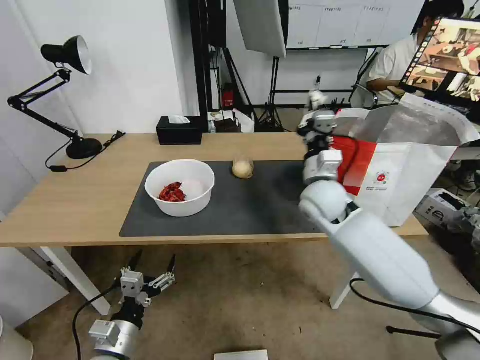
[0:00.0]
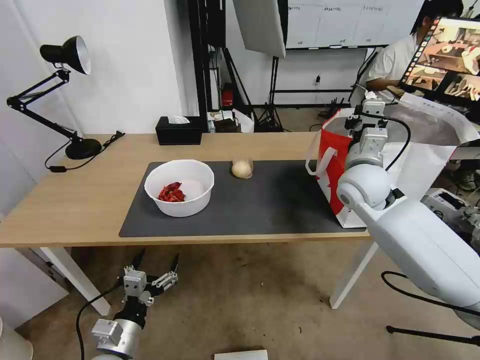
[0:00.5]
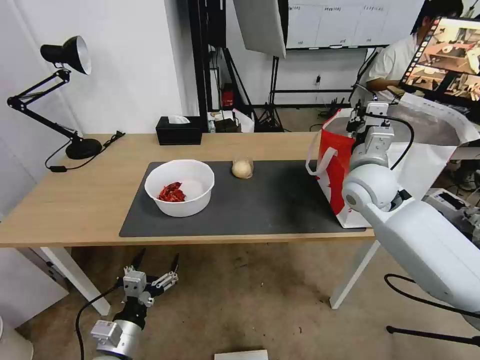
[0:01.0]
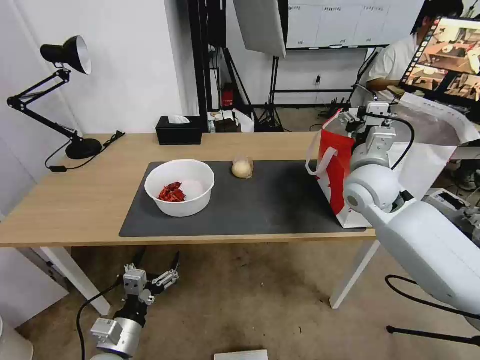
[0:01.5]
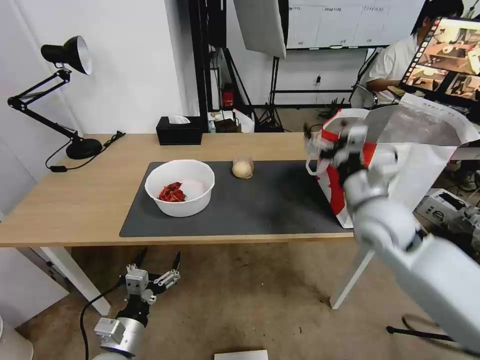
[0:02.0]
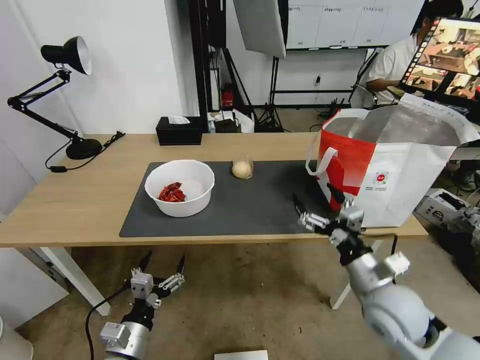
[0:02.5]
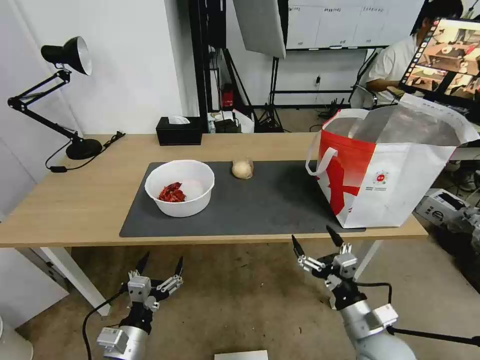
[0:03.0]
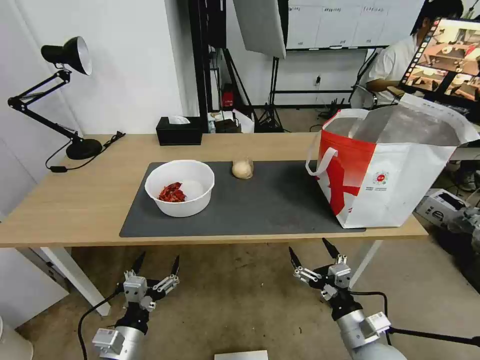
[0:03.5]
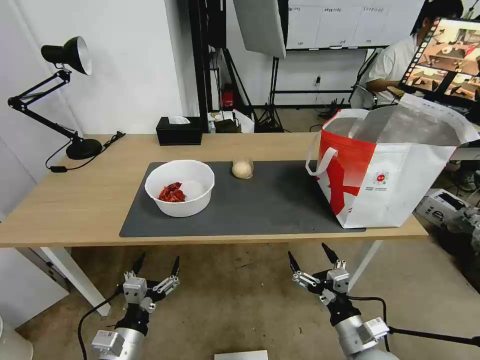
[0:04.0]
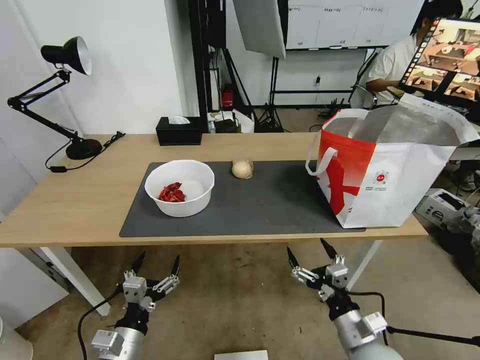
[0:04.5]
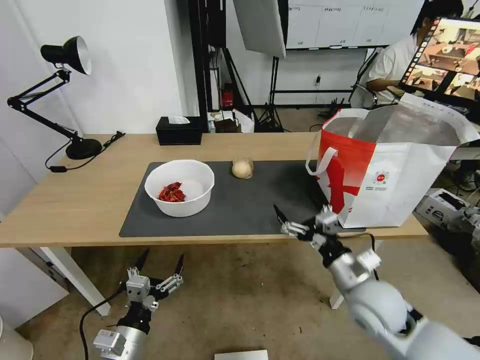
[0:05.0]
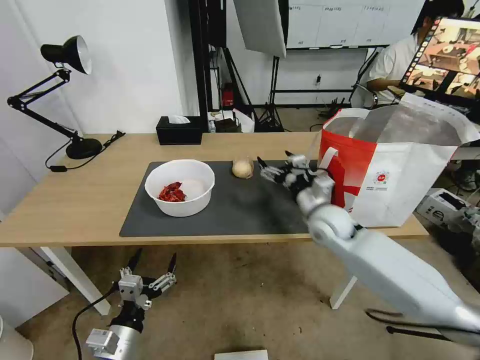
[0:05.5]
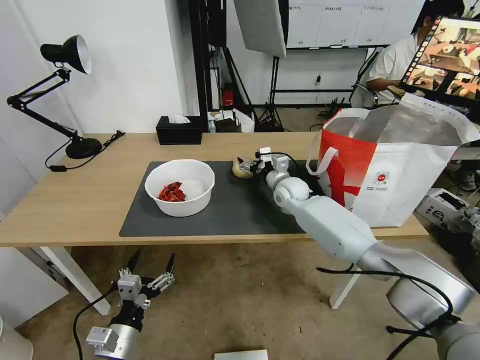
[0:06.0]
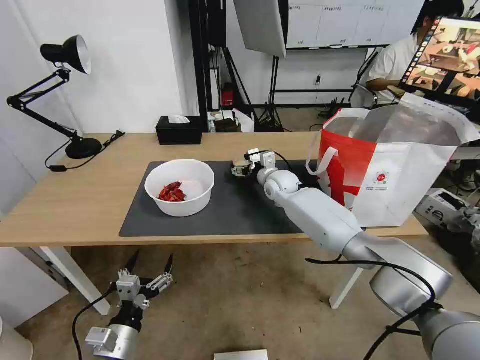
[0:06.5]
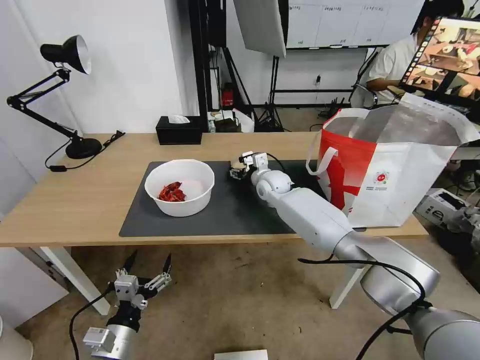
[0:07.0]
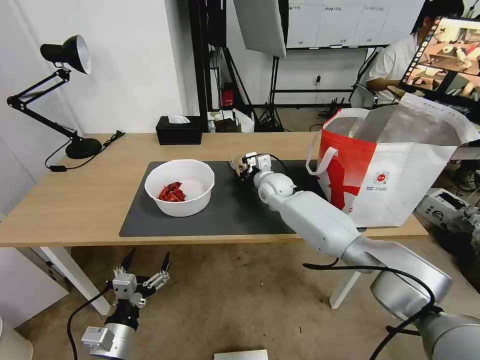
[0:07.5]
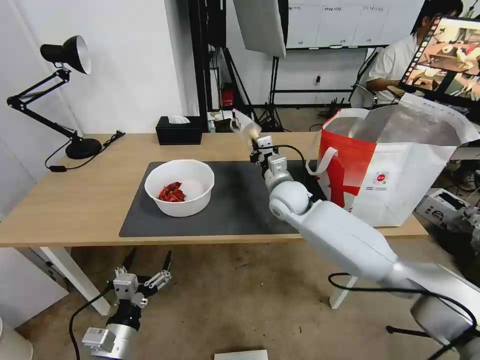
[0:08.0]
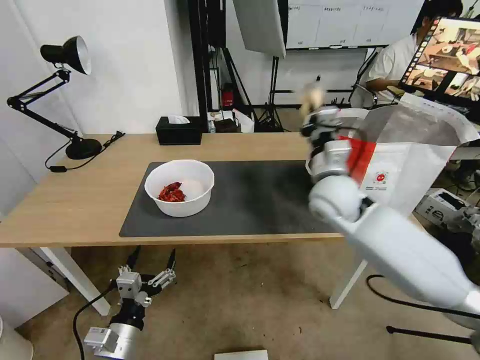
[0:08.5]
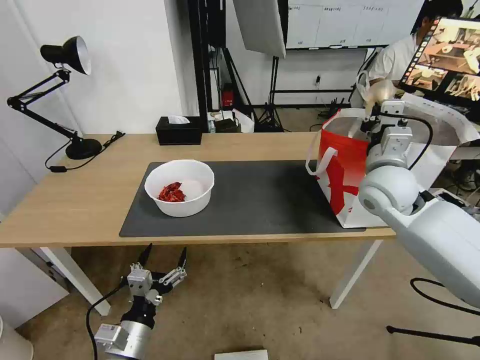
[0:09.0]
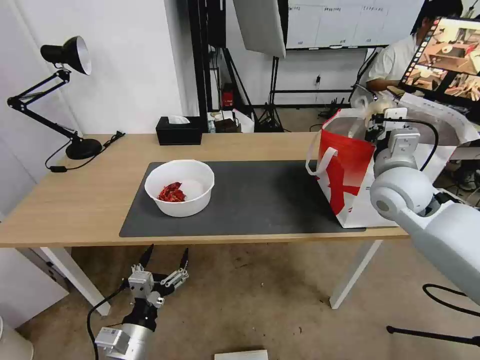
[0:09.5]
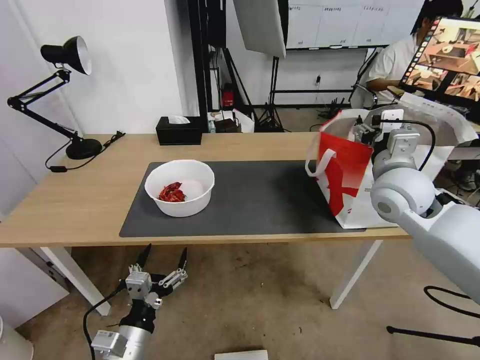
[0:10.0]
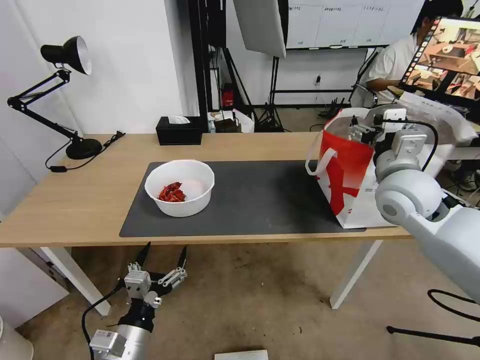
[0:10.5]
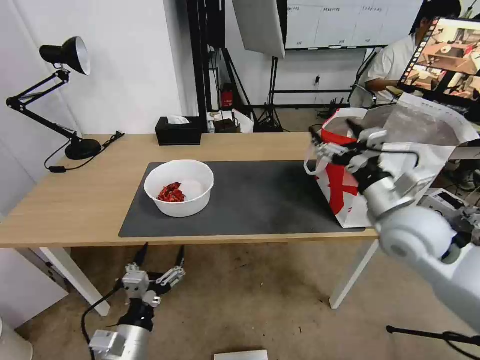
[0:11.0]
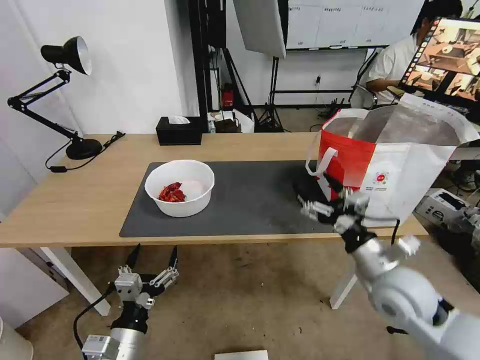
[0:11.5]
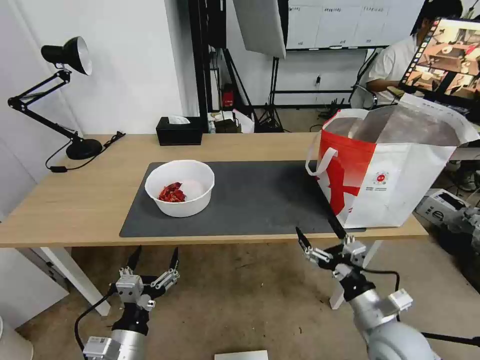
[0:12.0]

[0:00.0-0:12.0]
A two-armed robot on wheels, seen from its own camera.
Task of the whole recording: Pick up the trash from the table and place it into the takeout bag.
0:00.0 to 0:02.0: The right gripper heads backward and to the right, covering roughly 15 cm, and opens up.
0:02.0 to 0:04.0: The right gripper goes about 30 cm downward and backward.
0:04.0 to 0:06.0: The right gripper is displaced forward by approximately 40 cm.
0:06.0 to 0:08.0: The right gripper goes about 5 cm backward, and closes its fingers.
0:08.0 to 0:10.0: The left gripper changes place by roughly 5 cm; the right gripper shifts roughly 25 cm to the right, upward and backward, and opens its fingers.
0:10.0 to 0:12.0: The right gripper shifts about 30 cm backward and downward.

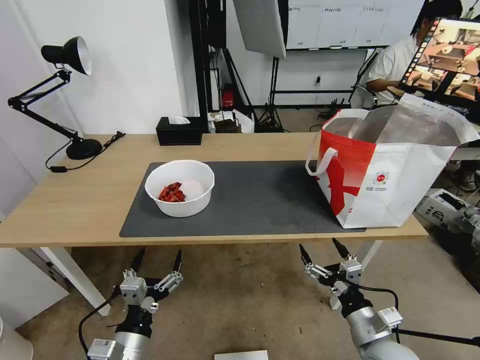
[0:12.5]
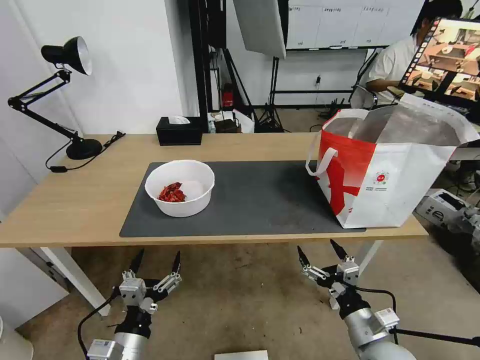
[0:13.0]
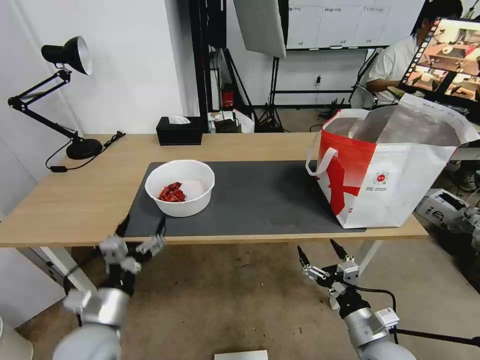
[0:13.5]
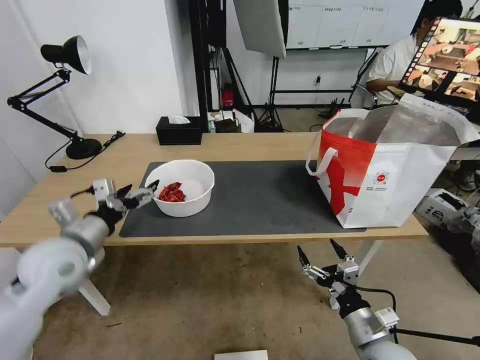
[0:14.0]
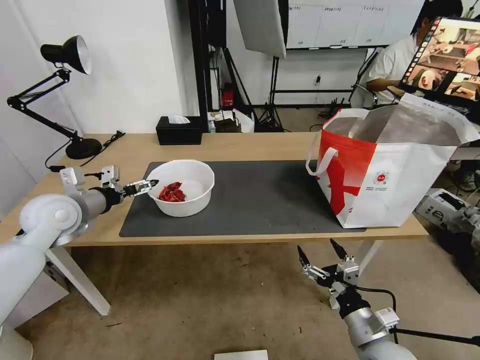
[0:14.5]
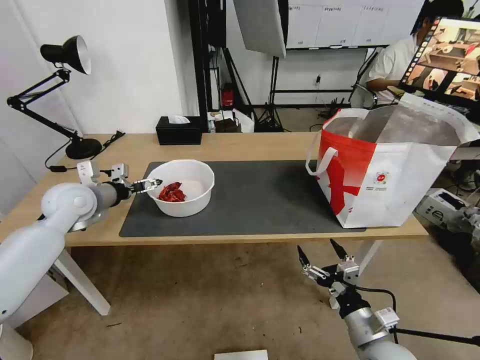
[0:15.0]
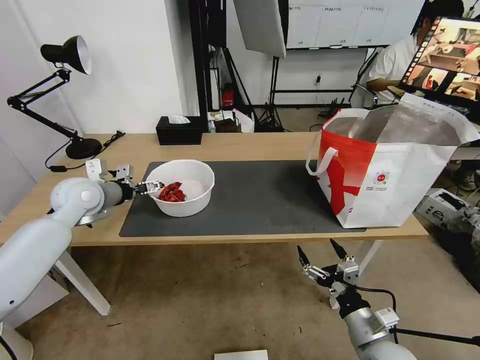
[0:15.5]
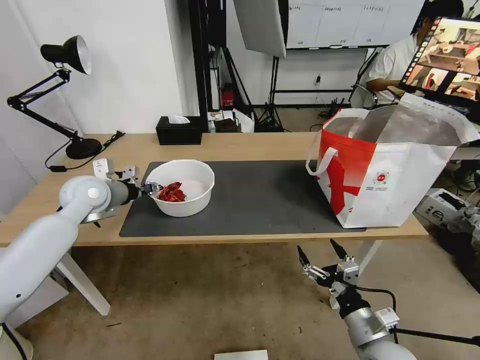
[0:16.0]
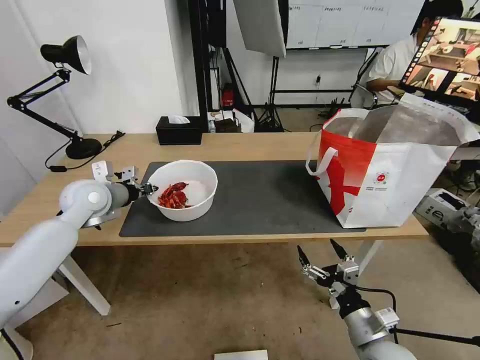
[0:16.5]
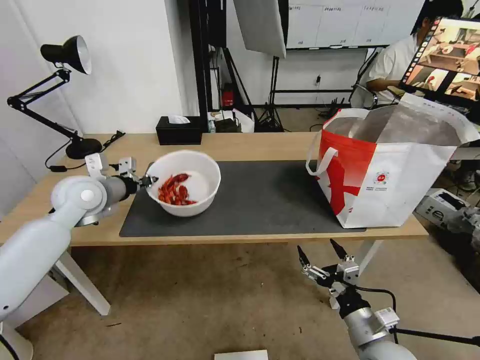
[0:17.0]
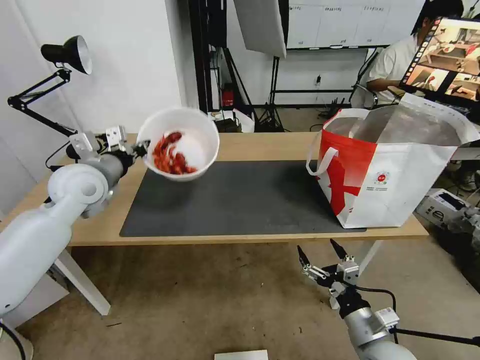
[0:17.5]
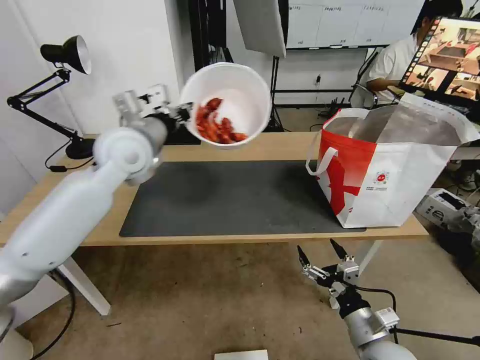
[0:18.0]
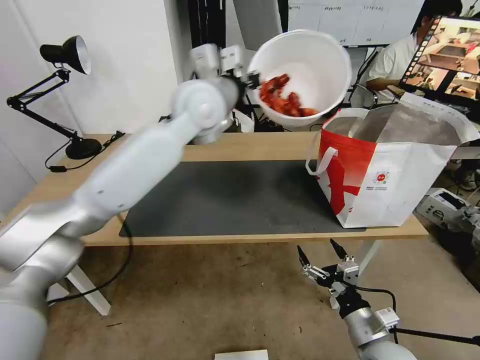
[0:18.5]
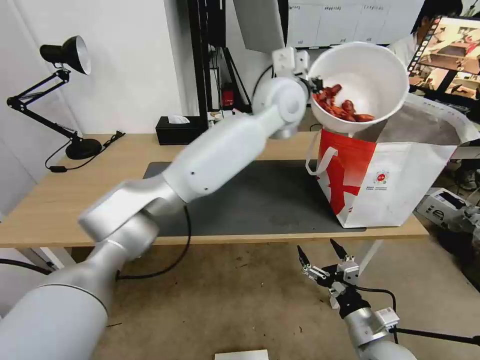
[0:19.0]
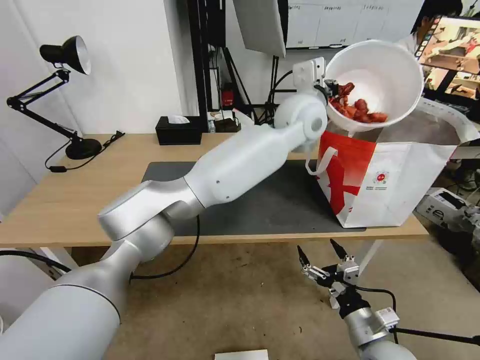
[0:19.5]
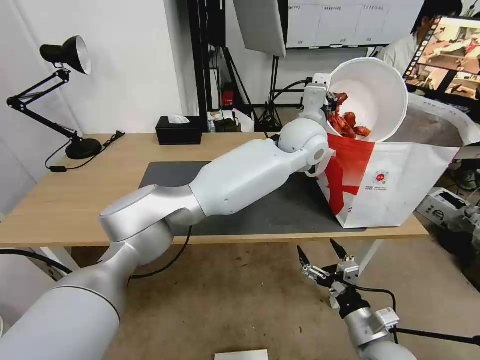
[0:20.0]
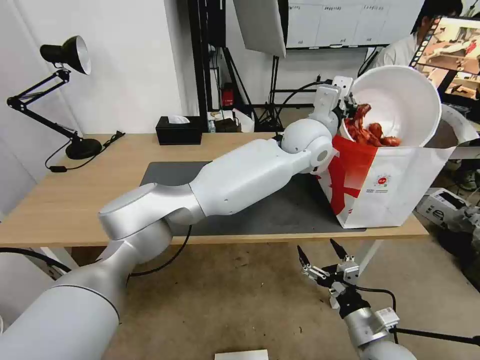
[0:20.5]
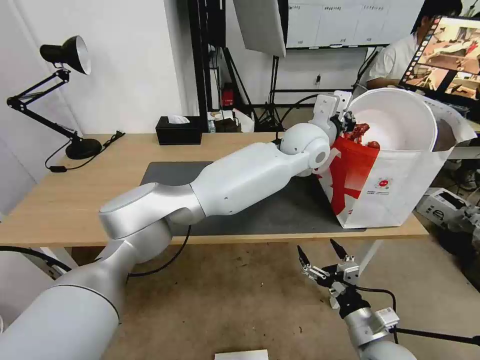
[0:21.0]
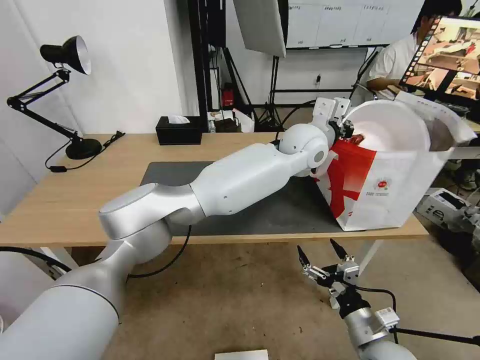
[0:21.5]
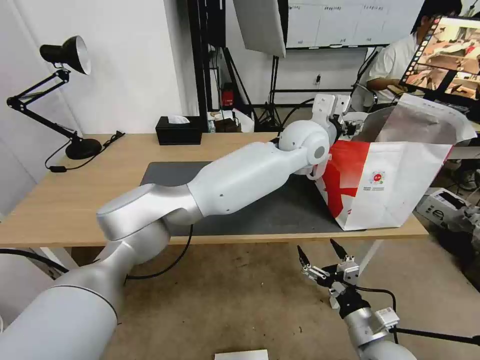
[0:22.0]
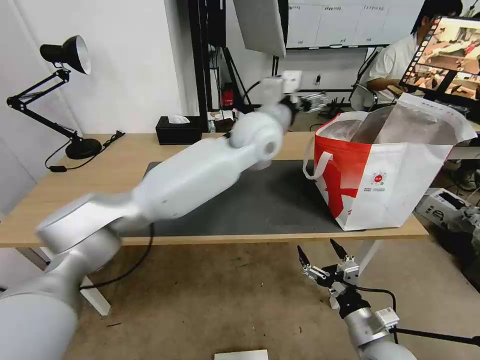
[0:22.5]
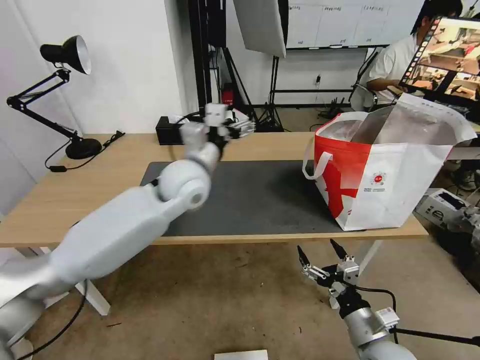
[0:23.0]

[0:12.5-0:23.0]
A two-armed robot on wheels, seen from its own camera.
Task of the whole recording: Pick up the trash from the table and place it into the takeout bag.
0:12.5 to 0:14.5: The left gripper heads forward, upward and to the left, covering about 35 cm.
0:14.5 to 0:16.5: The left gripper moves forward, roughly 5 cm, and closes its fingers.
0:16.5 to 0:19.0: The left gripper heads to the right and upward, covering some 40 cm.
0:19.0 to 0:21.0: The left gripper goes about 10 cm downward and to the right.
0:21.0 to 0:23.0: The left gripper shifts approximately 25 cm to the left, and opens.

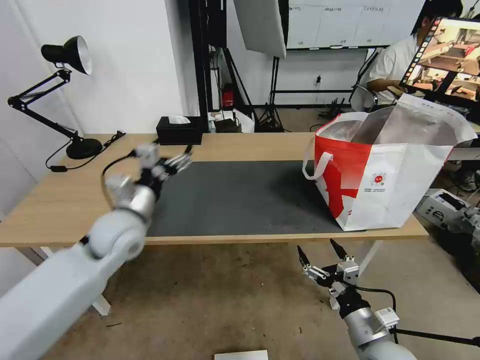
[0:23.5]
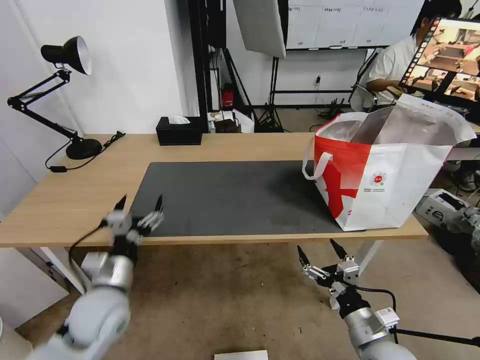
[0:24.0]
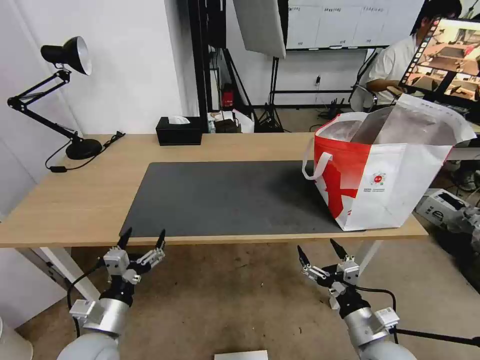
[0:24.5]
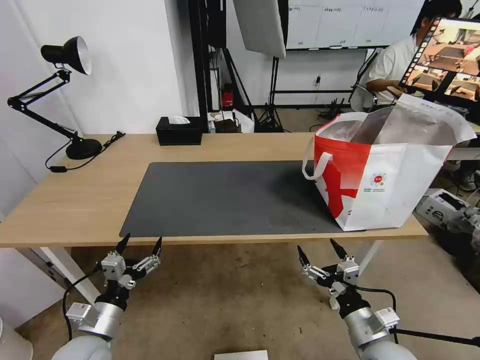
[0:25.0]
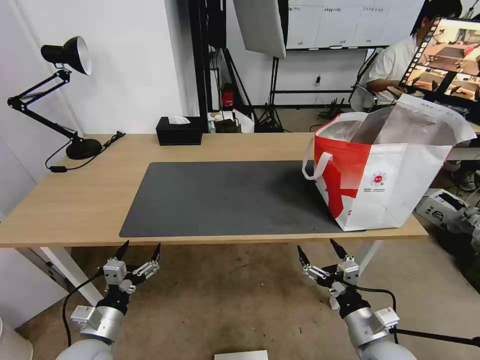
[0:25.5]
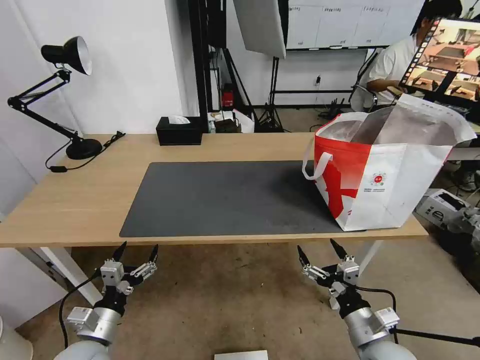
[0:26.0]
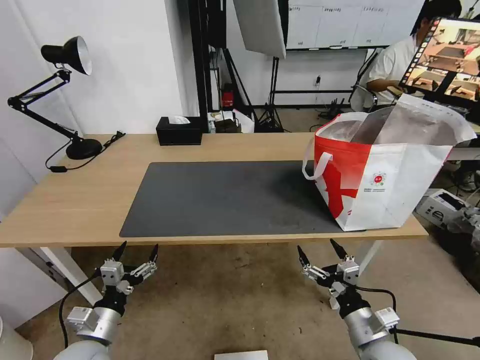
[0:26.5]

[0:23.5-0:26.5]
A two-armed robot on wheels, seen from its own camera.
Task of the whole recording: Pick up the trash from the table and place it into the takeout bag.
0:23.5 to 0:25.0: The left gripper heads backward and downward, covering approximately 25 cm.
0:25.0 to 0:26.5: The grippers stay close to where they were, moving slightly.
